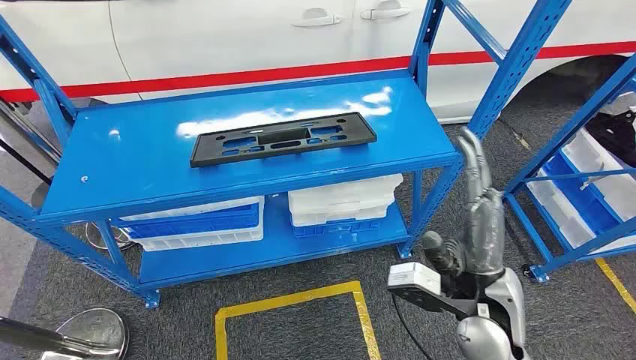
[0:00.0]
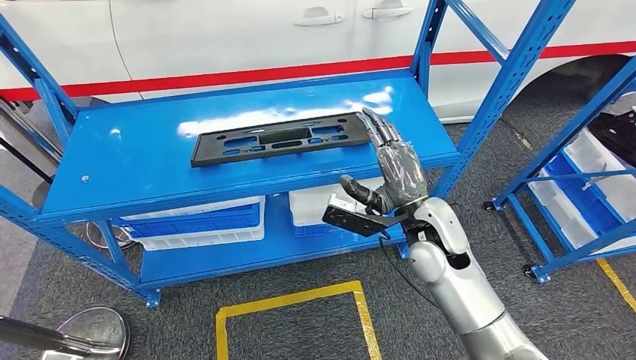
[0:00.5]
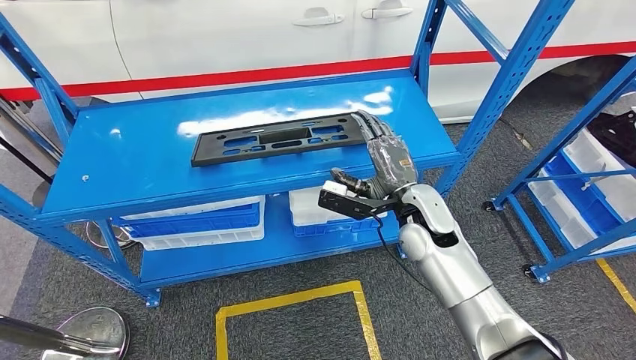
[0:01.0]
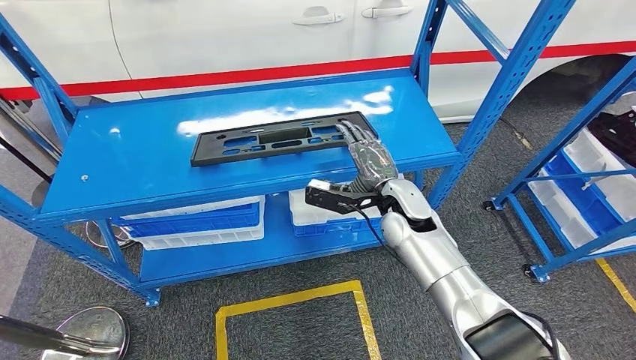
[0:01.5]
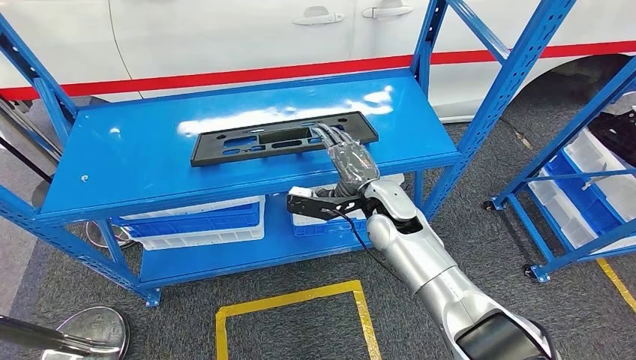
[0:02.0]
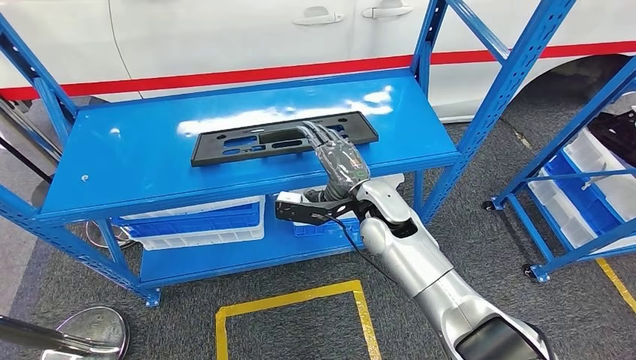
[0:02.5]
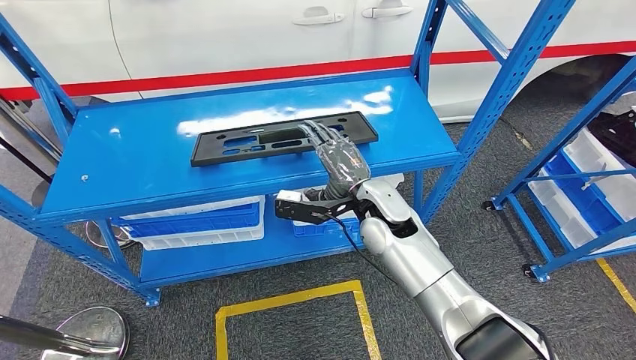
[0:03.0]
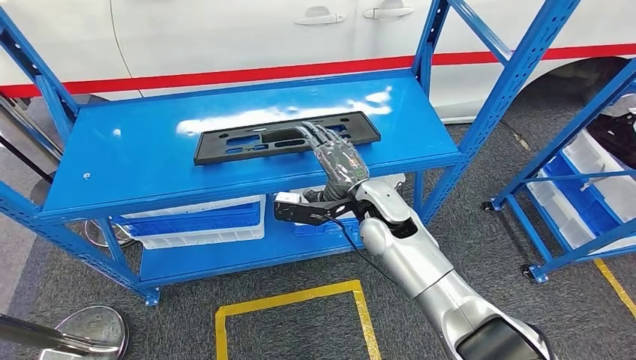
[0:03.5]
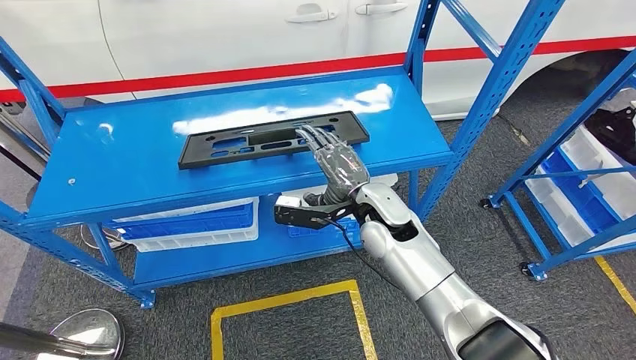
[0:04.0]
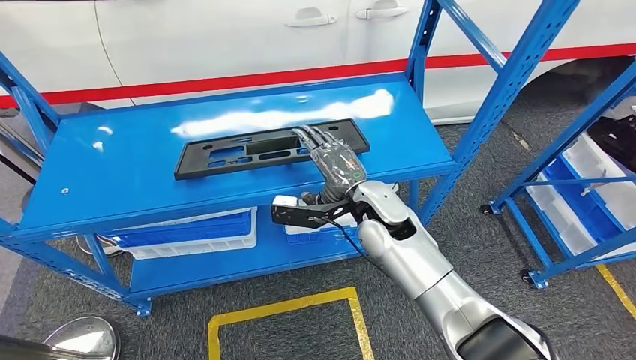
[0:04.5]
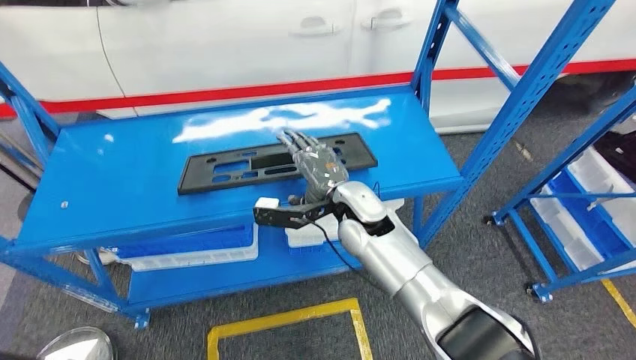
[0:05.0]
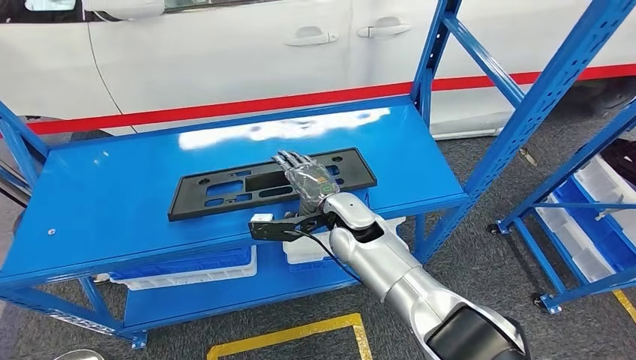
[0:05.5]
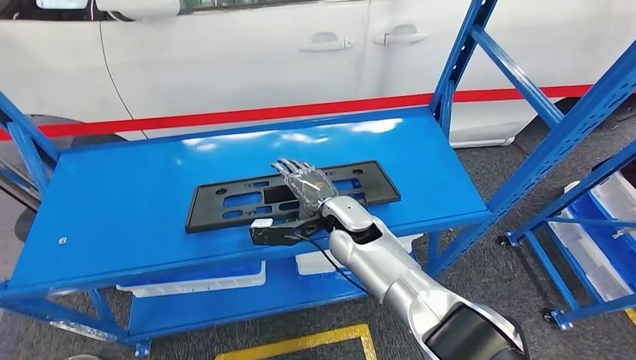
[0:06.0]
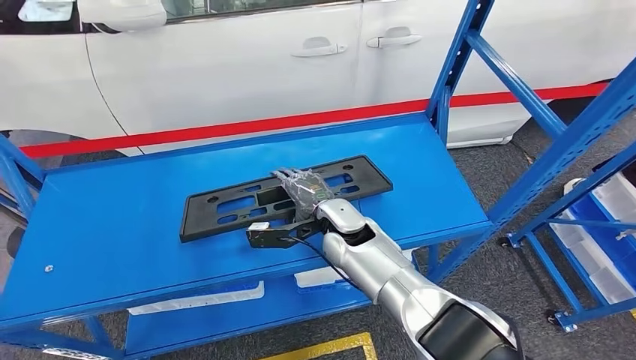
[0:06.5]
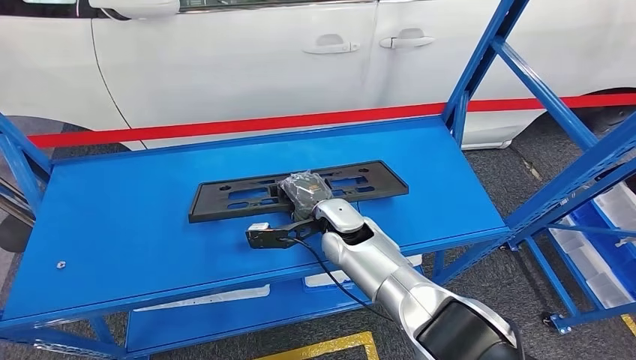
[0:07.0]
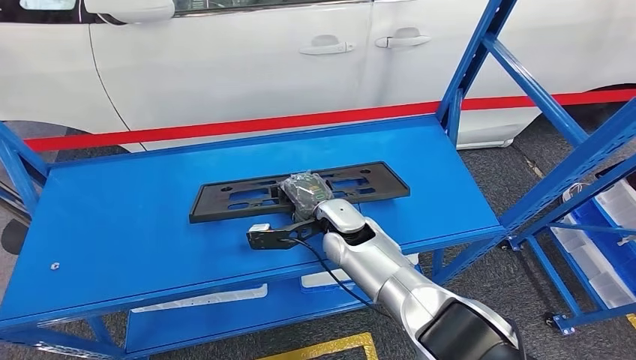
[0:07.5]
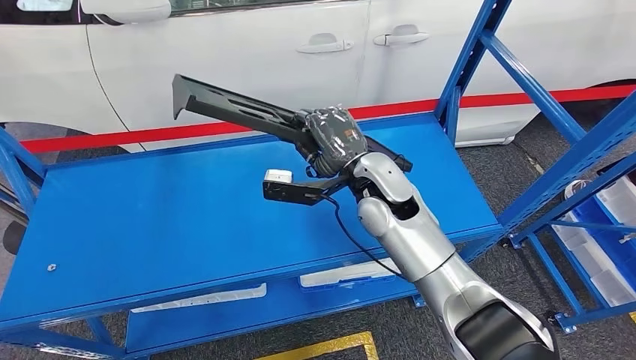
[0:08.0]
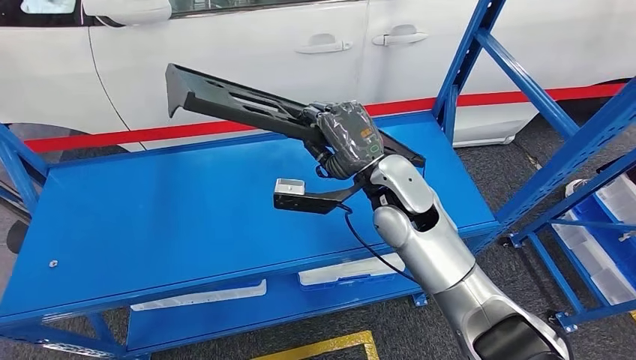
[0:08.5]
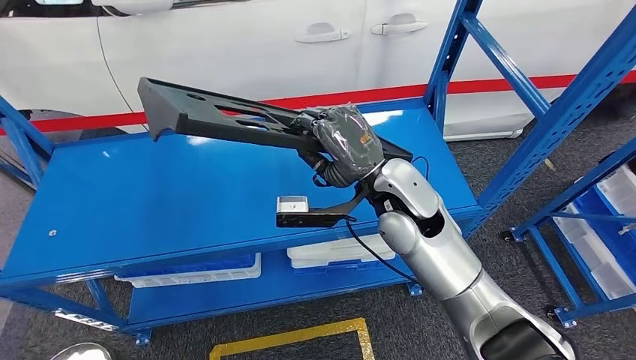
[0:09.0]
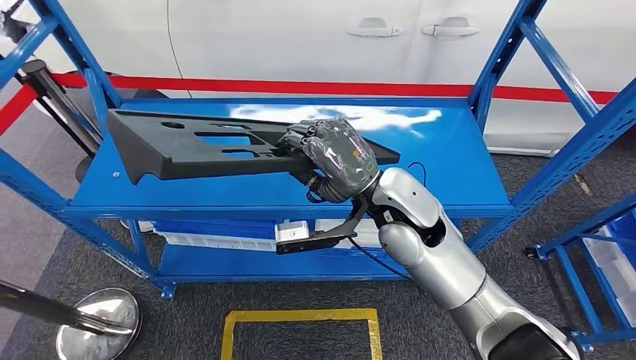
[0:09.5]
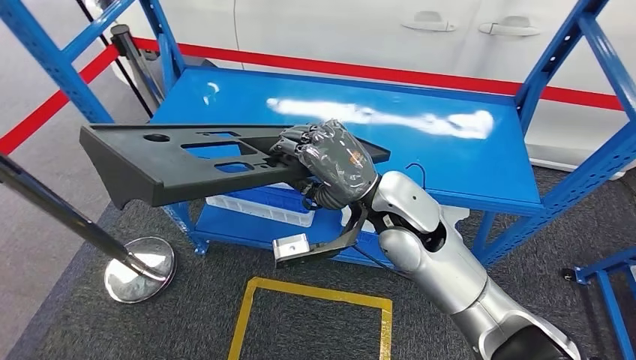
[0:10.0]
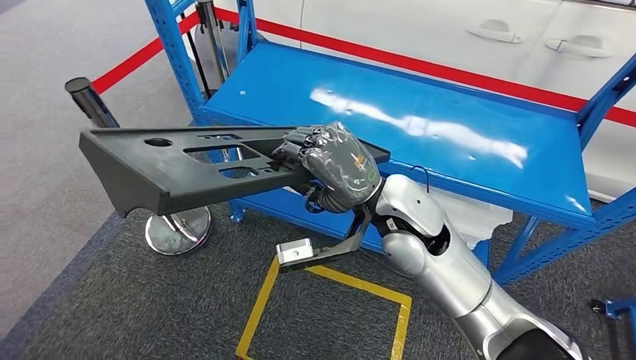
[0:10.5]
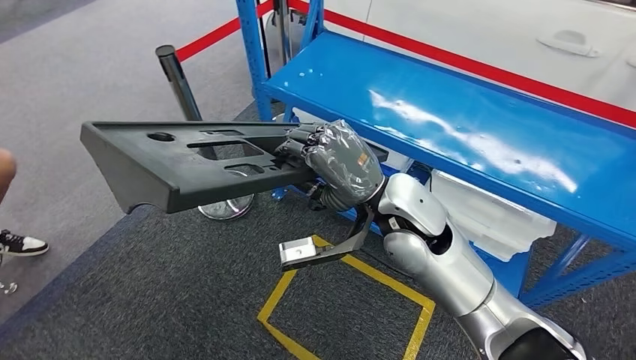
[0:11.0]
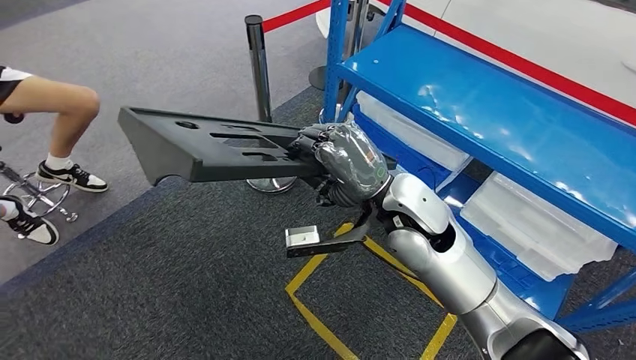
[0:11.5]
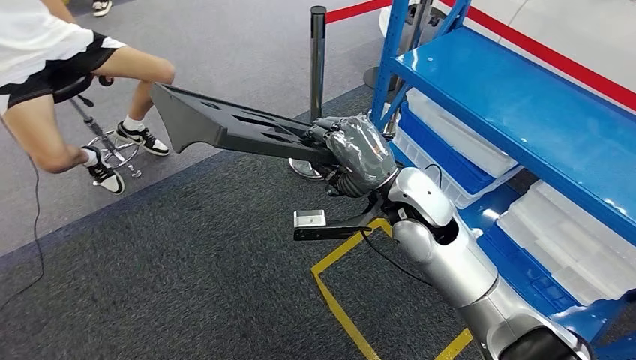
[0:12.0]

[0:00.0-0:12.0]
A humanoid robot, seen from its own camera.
Step, 0:00.0 to 0:09.0: Pick up the large material from the shelf.

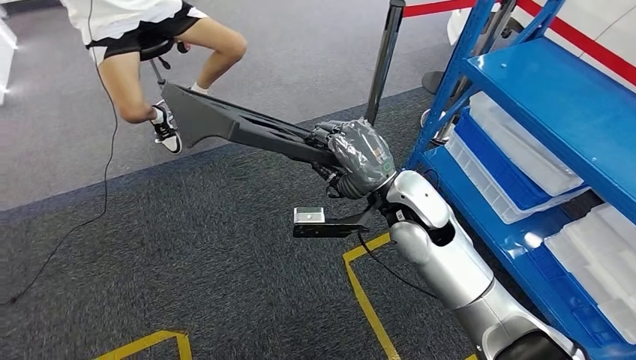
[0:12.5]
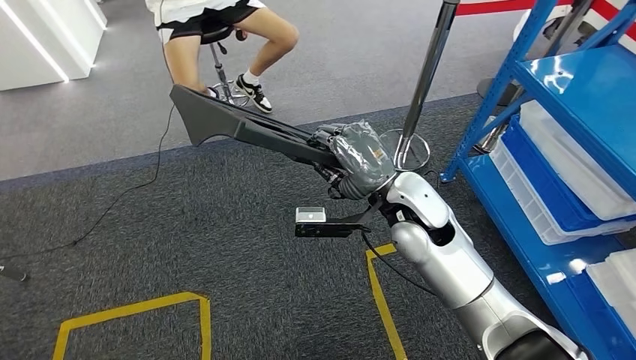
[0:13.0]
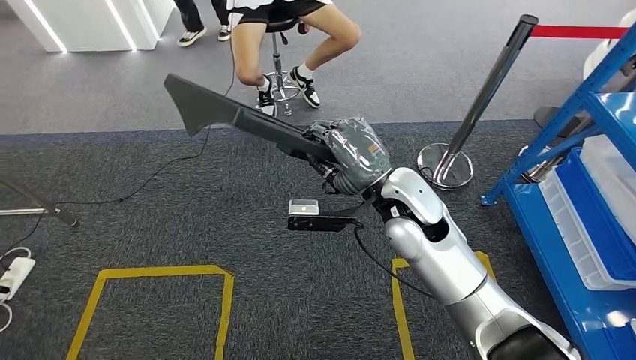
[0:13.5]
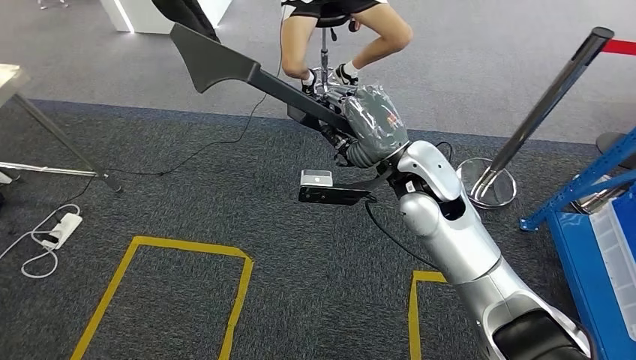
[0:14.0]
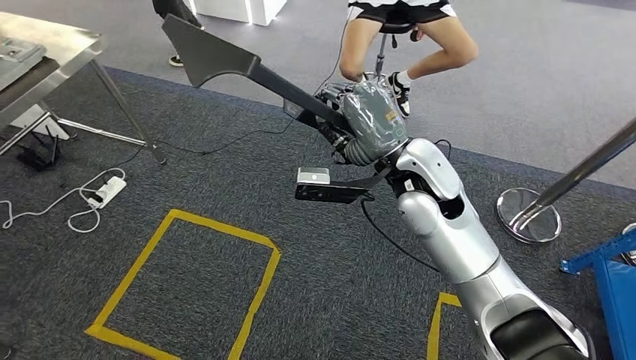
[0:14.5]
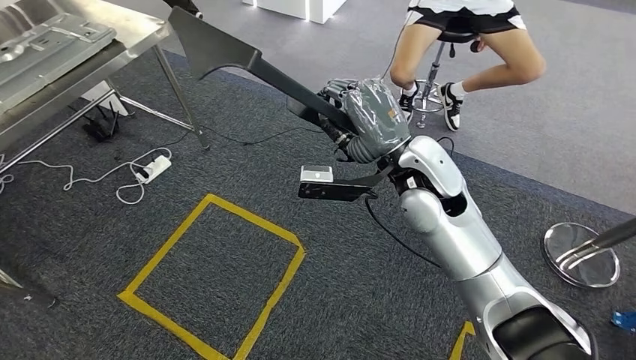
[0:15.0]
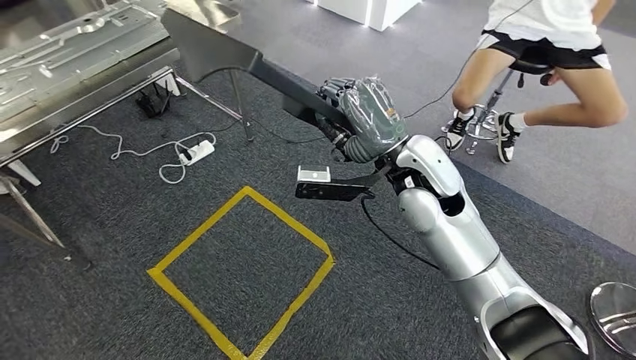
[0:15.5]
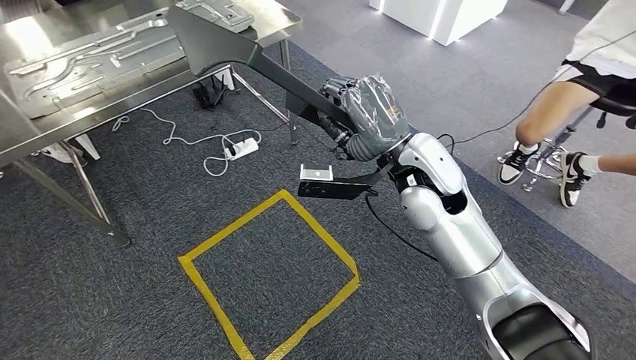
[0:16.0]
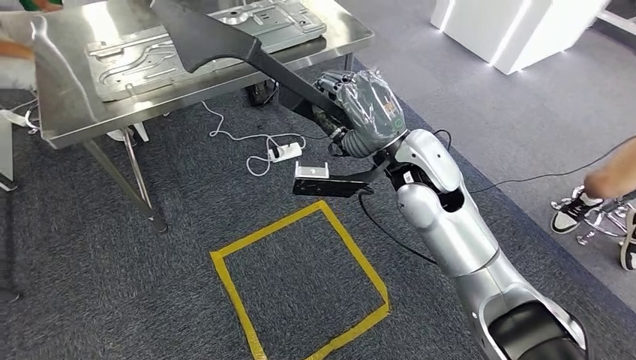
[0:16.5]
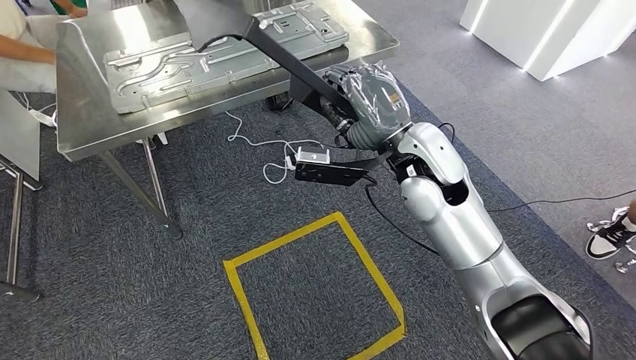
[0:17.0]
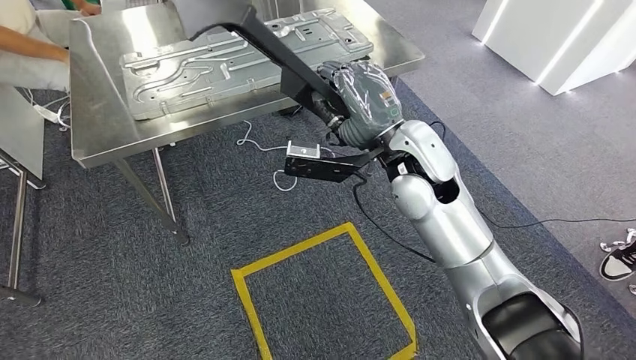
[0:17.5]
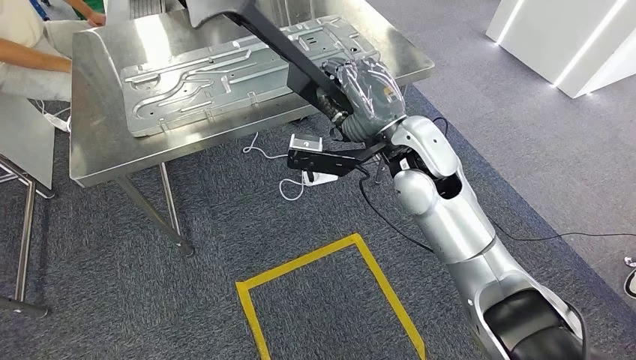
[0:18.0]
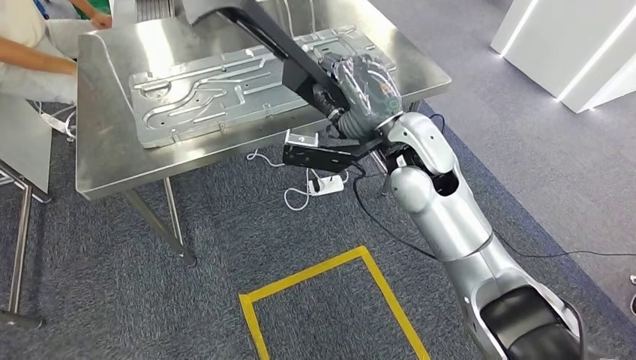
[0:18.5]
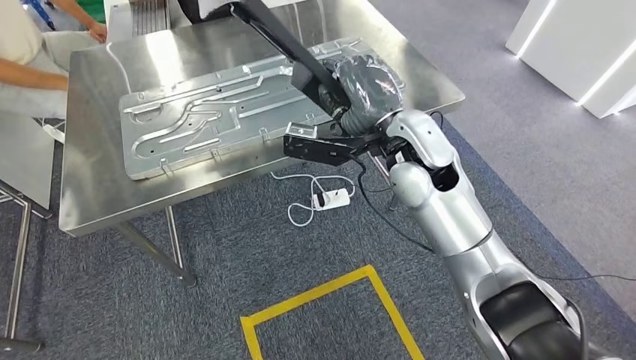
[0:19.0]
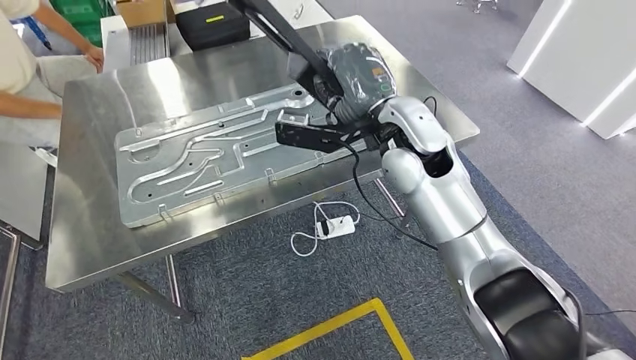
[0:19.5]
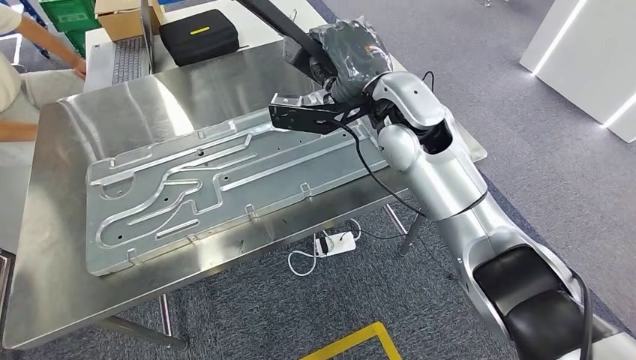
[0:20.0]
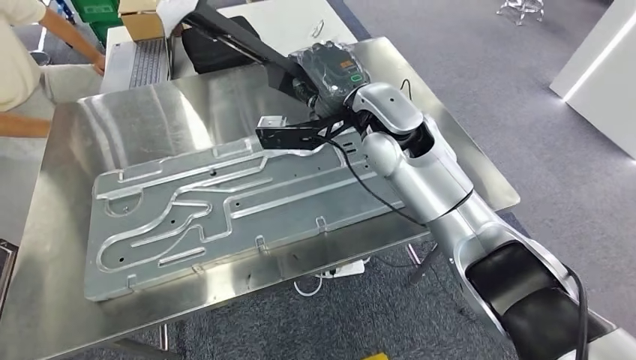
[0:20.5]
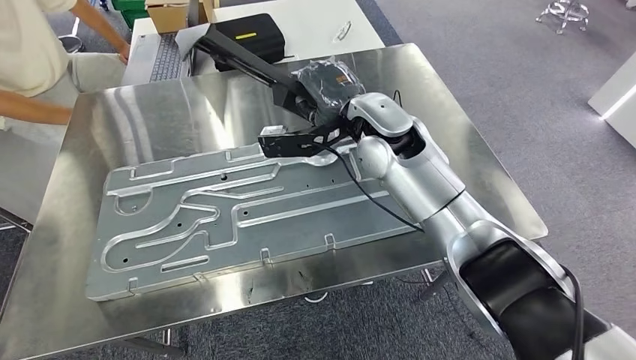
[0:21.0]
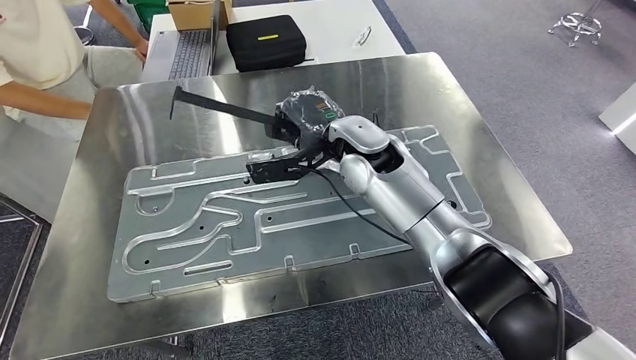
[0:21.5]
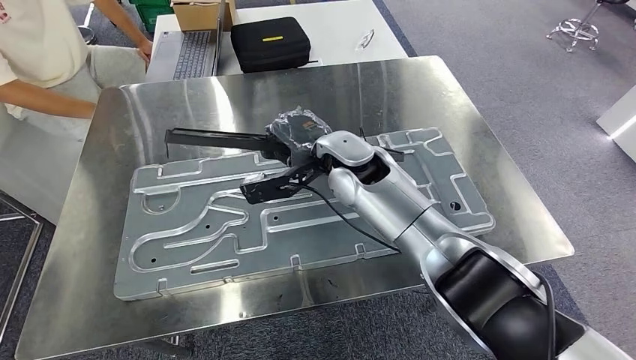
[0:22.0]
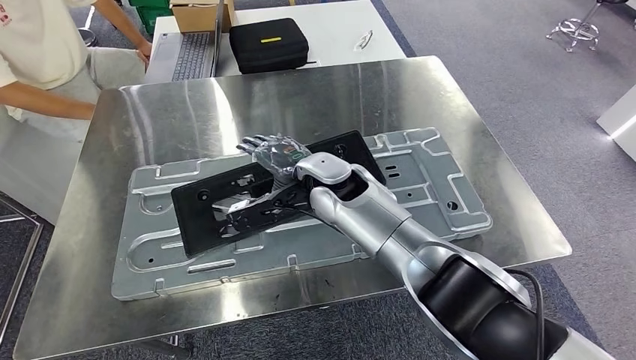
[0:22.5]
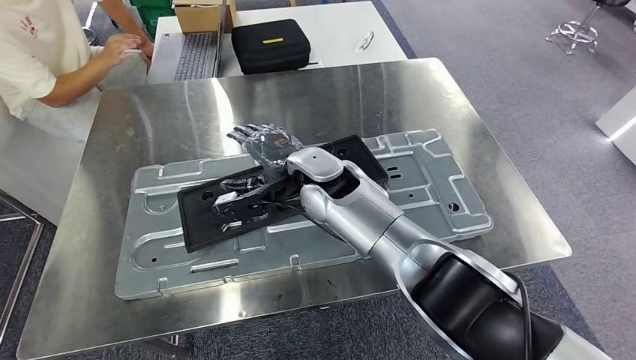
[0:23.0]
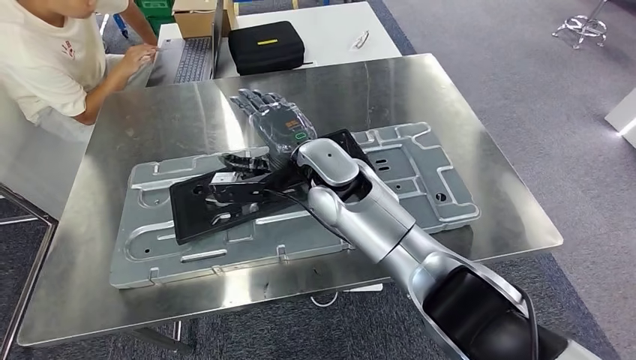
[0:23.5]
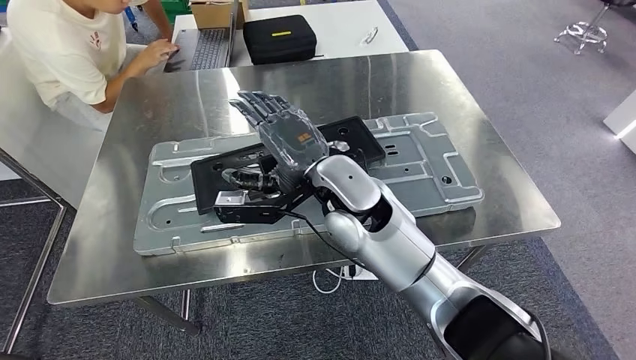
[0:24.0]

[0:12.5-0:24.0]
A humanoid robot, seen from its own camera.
Step, 0:12.5 to 0:20.0: Move the large material to the workbench.
